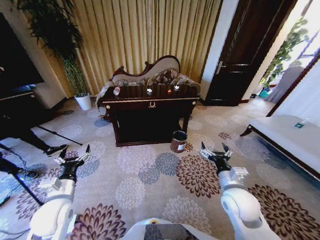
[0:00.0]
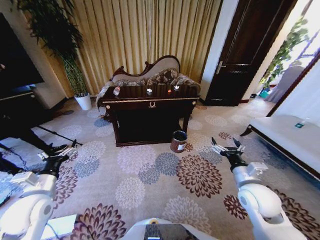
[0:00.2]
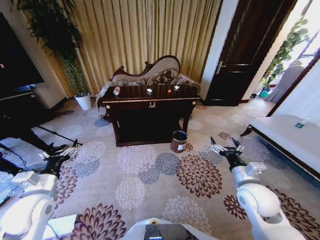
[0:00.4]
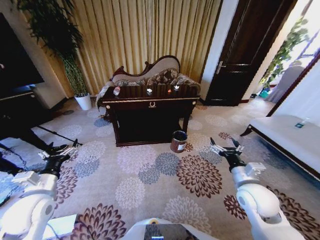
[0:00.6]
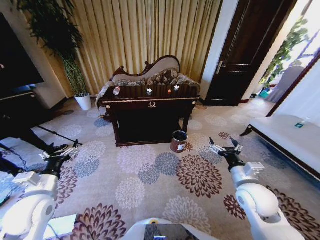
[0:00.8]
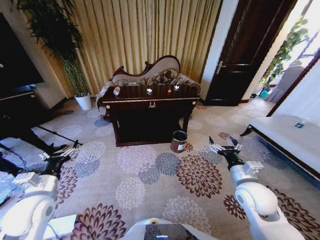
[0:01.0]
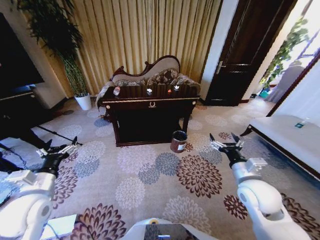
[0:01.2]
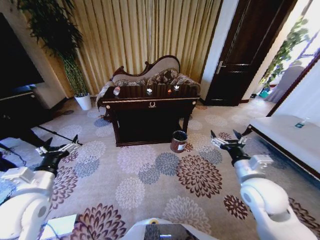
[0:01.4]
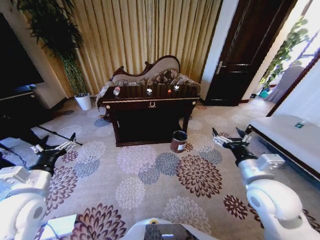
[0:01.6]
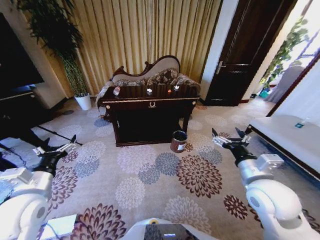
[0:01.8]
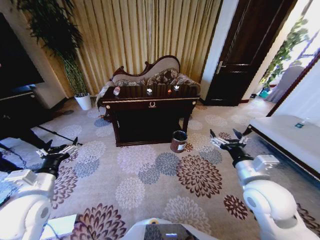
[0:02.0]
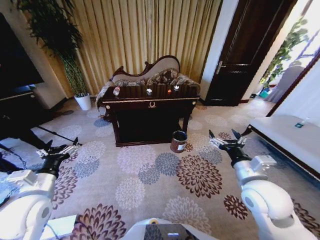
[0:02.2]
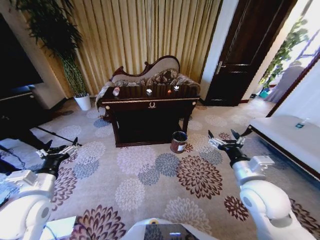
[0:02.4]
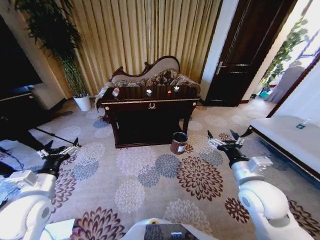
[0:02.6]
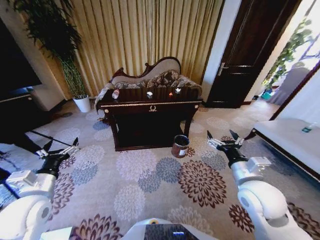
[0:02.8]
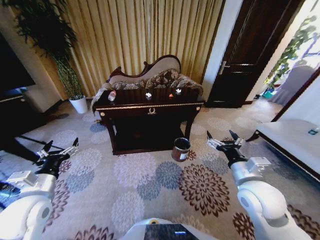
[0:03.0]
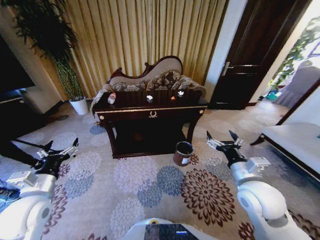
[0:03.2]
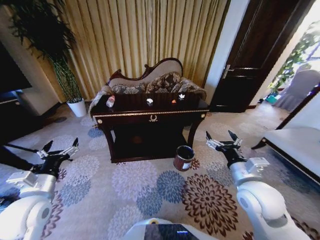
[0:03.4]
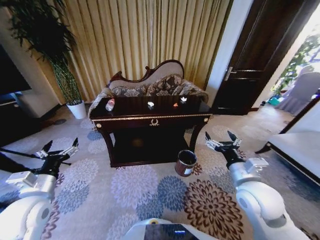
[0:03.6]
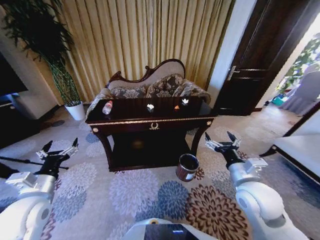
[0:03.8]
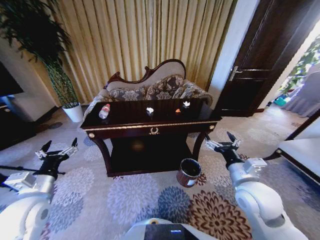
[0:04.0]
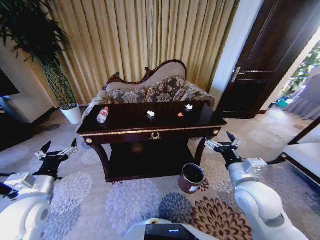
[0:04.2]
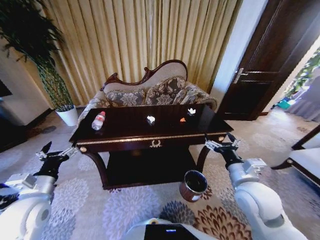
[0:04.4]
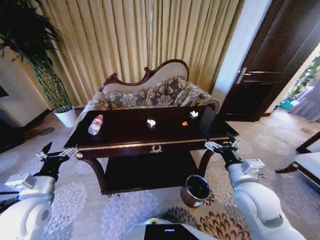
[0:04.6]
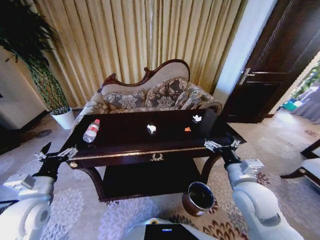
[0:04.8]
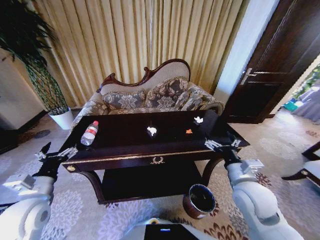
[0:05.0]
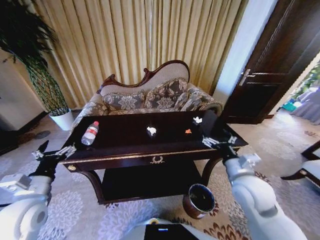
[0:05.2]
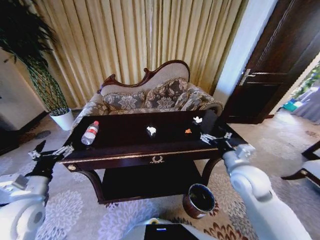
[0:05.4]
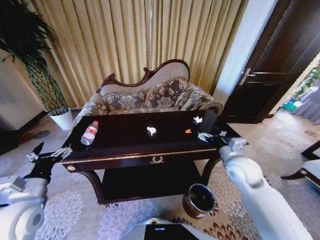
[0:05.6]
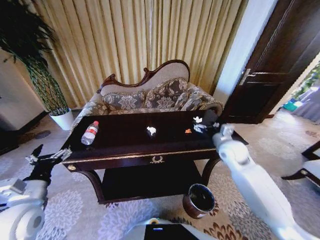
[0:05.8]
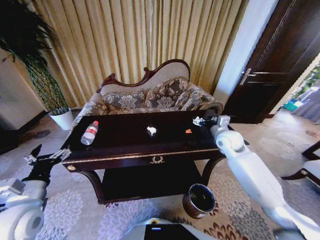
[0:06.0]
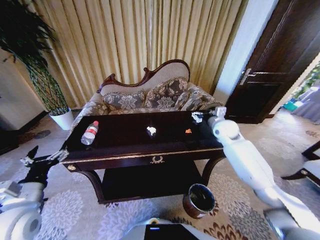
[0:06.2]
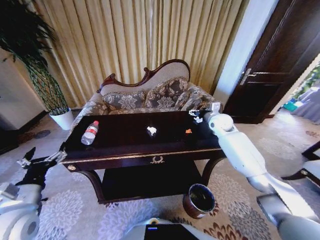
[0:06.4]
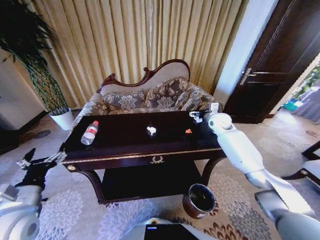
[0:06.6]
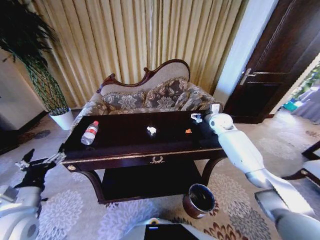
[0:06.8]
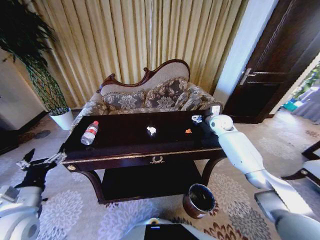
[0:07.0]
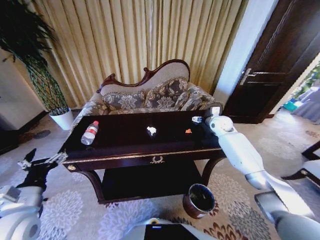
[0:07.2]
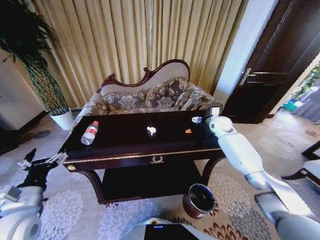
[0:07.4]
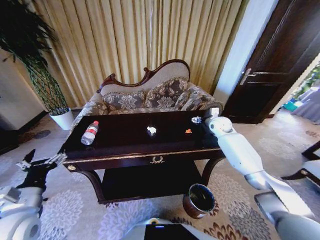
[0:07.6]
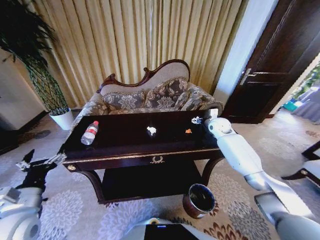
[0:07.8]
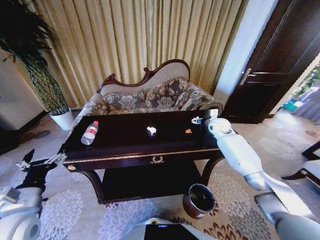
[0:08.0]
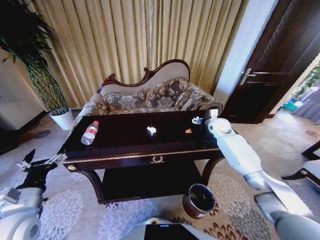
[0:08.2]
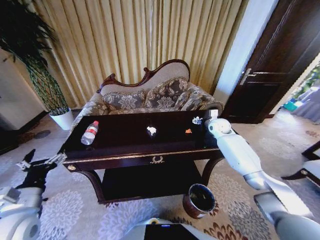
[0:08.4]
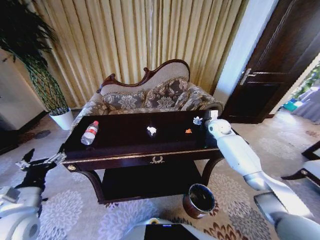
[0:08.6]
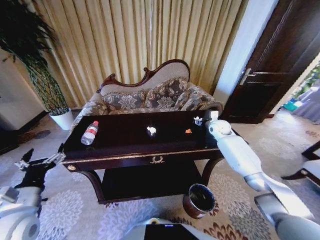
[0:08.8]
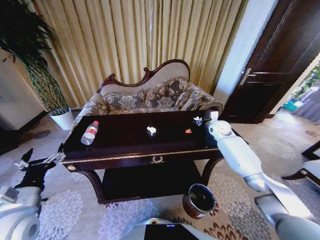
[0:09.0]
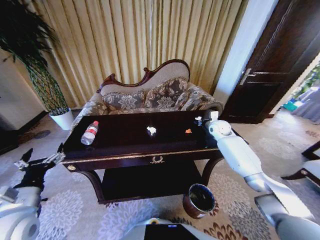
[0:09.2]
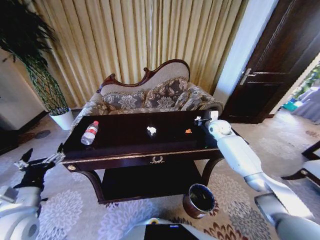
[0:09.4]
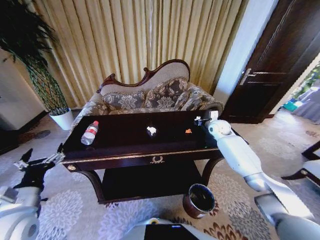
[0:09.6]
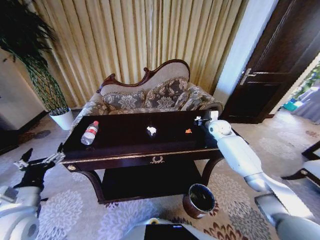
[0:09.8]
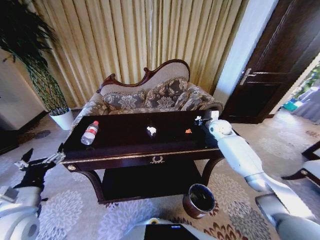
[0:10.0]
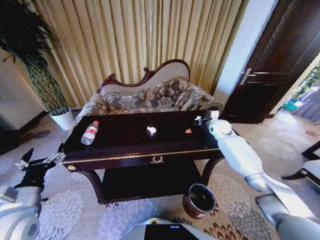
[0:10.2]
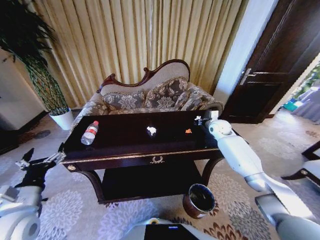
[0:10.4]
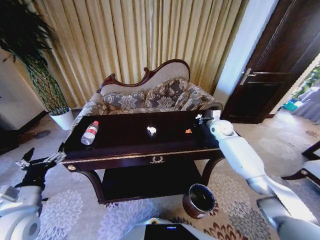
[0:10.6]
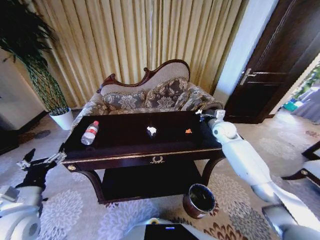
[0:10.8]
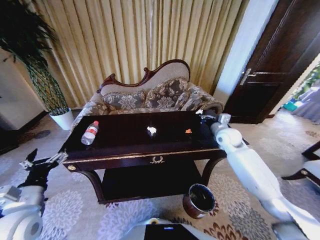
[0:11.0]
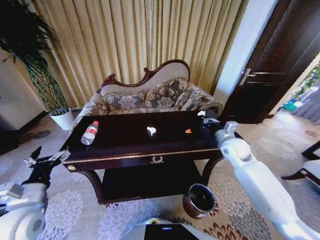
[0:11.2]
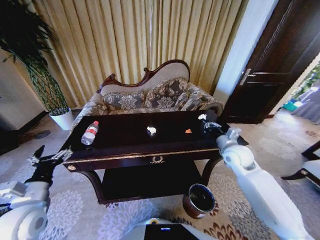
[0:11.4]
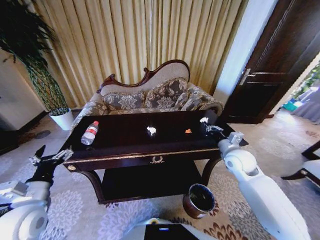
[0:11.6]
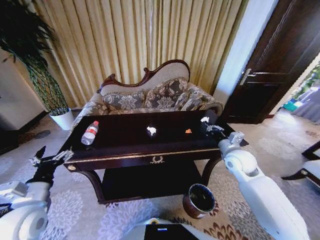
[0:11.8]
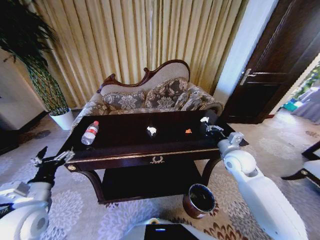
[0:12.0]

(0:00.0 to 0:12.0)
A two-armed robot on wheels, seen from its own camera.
Task of the whole recording: Move to the front of the table and place the trash on the table into the trash bin.
0:04.4 - 0:06.0: The right gripper travels forward by about 25 cm.
0:06.0 - 0:07.6: The right gripper heads forward, covering about 10 cm.
0:07.6 - 0:09.0: The right gripper closes up.
0:10.4 - 0:12.0: The right gripper heads backward, covering approximately 20 cm.

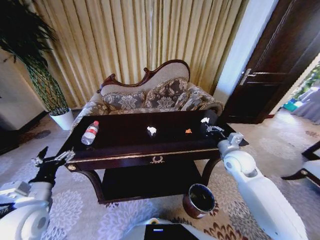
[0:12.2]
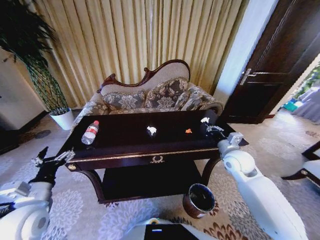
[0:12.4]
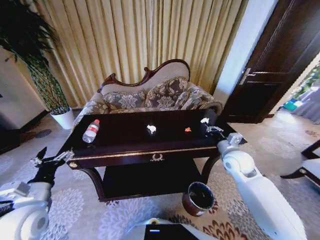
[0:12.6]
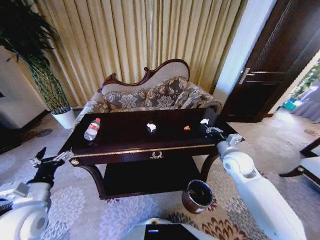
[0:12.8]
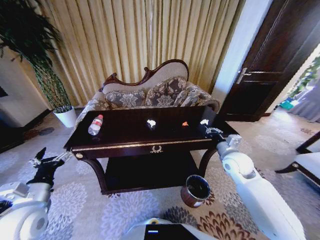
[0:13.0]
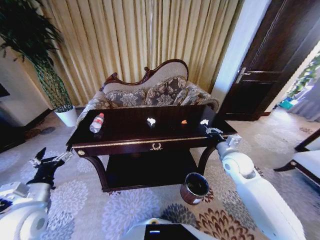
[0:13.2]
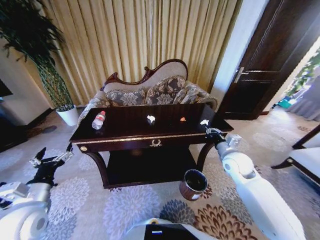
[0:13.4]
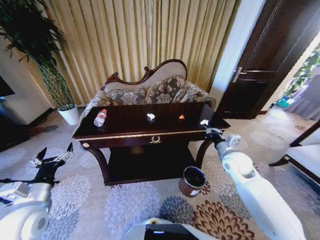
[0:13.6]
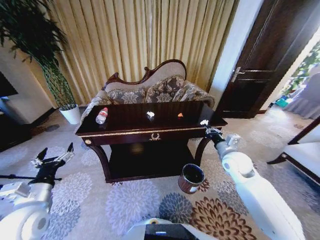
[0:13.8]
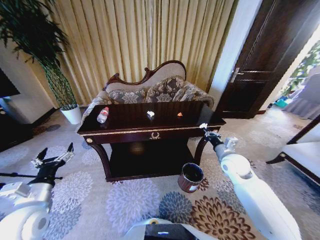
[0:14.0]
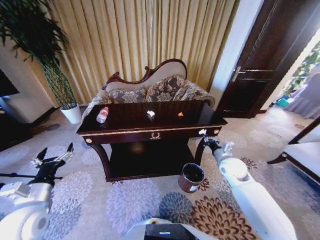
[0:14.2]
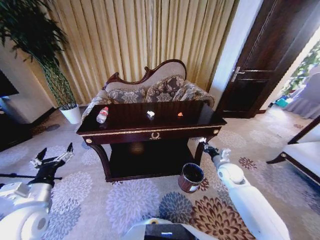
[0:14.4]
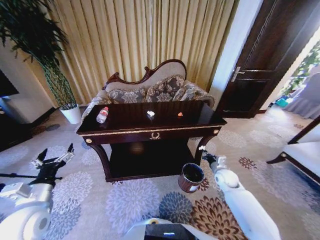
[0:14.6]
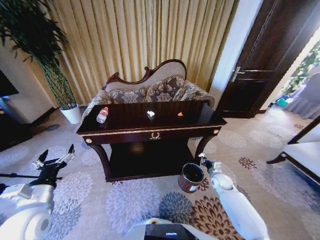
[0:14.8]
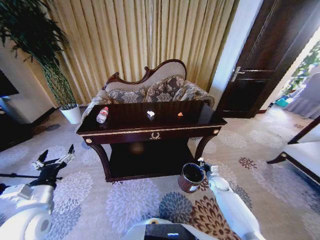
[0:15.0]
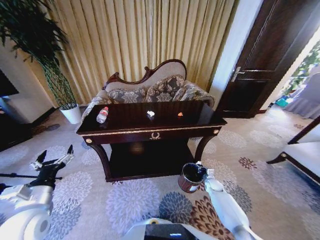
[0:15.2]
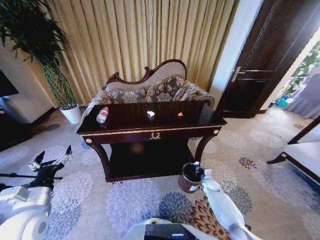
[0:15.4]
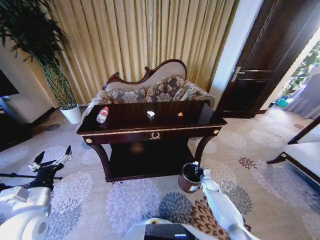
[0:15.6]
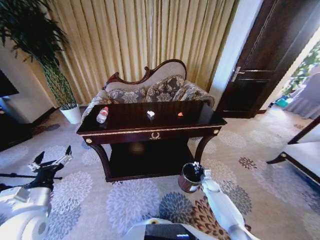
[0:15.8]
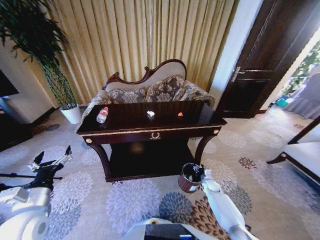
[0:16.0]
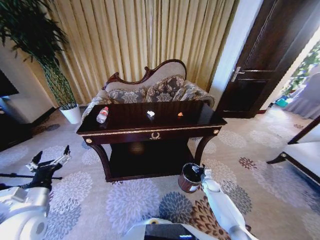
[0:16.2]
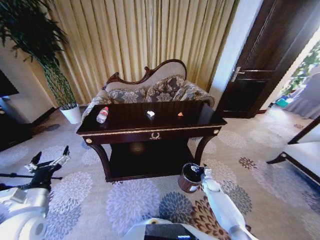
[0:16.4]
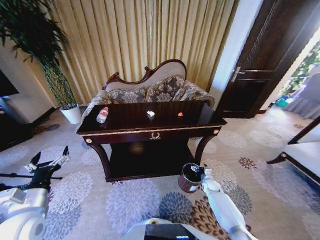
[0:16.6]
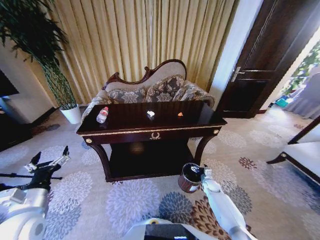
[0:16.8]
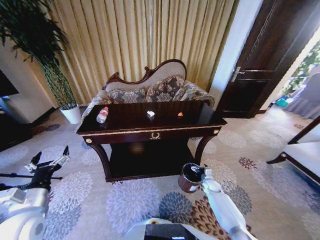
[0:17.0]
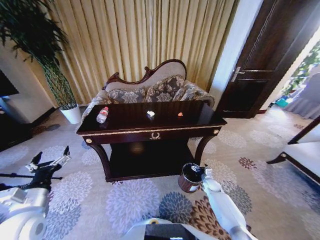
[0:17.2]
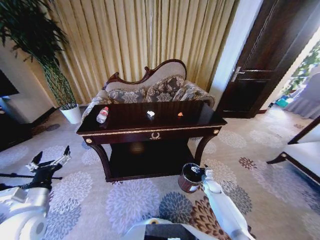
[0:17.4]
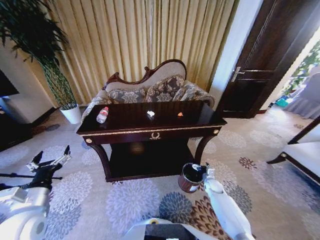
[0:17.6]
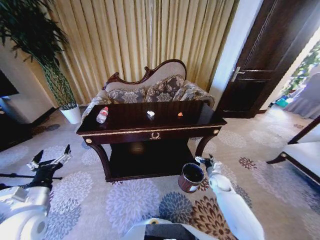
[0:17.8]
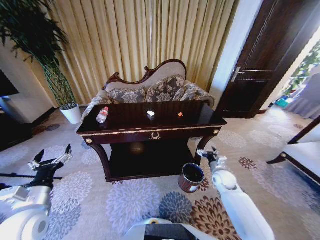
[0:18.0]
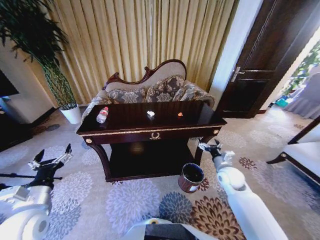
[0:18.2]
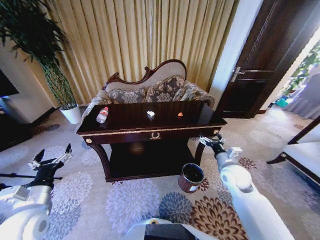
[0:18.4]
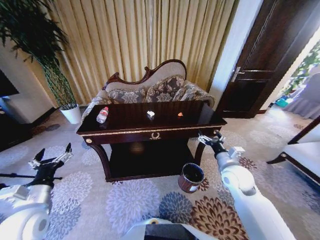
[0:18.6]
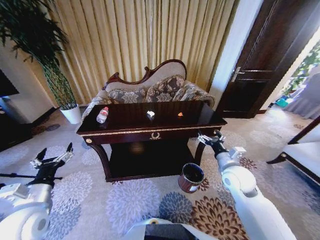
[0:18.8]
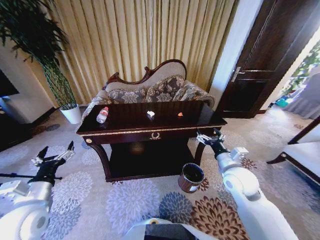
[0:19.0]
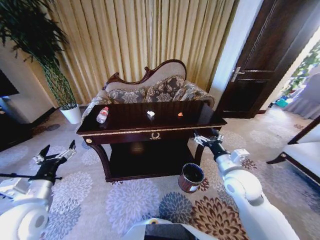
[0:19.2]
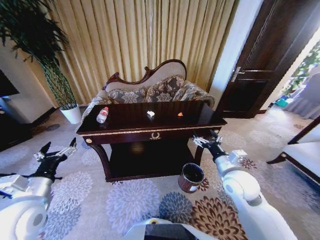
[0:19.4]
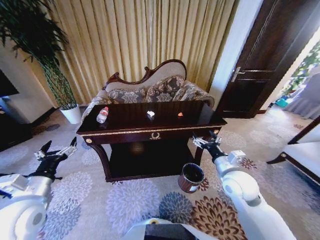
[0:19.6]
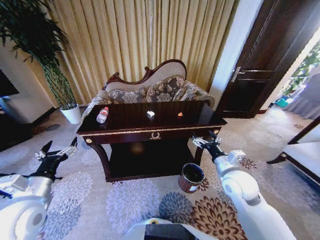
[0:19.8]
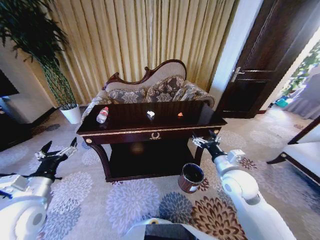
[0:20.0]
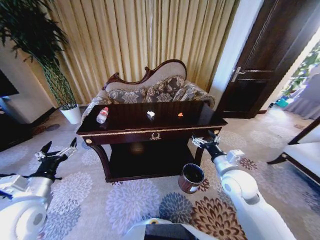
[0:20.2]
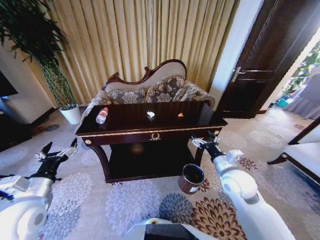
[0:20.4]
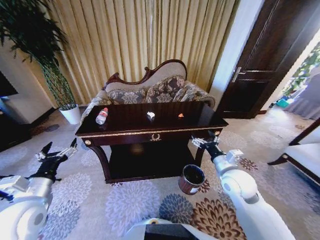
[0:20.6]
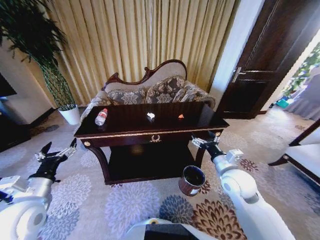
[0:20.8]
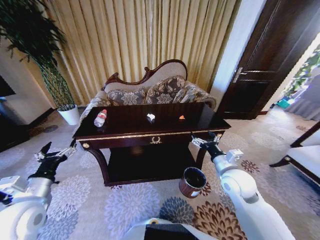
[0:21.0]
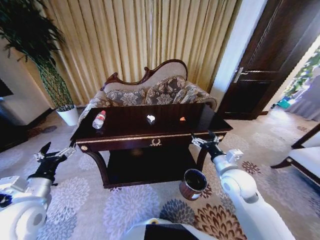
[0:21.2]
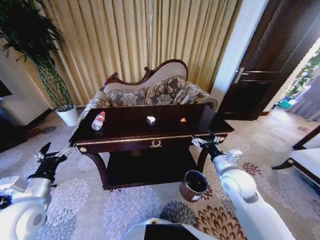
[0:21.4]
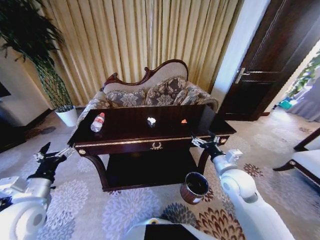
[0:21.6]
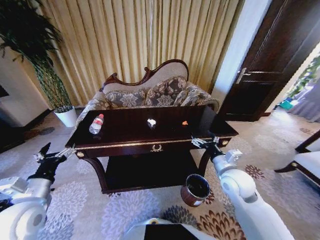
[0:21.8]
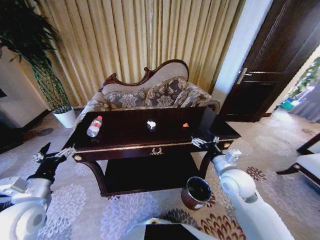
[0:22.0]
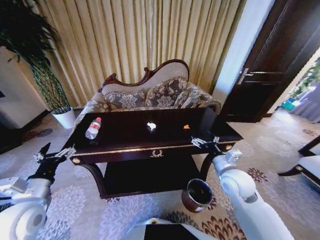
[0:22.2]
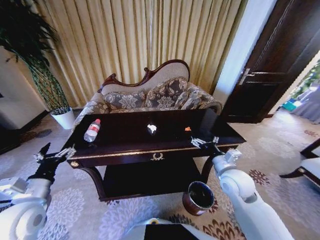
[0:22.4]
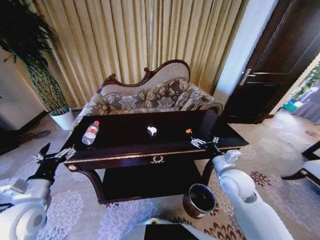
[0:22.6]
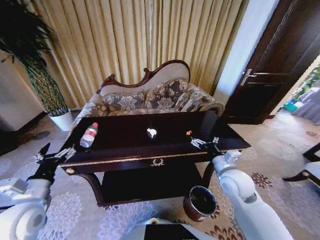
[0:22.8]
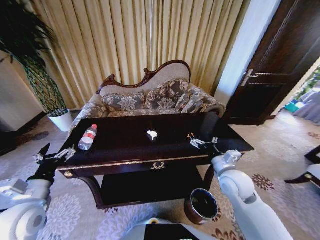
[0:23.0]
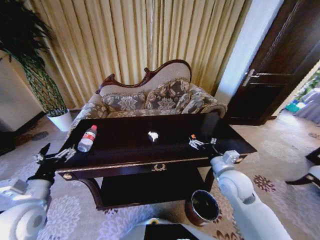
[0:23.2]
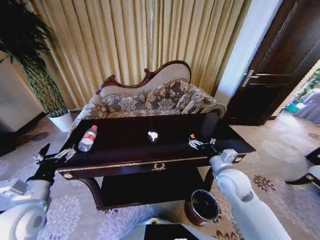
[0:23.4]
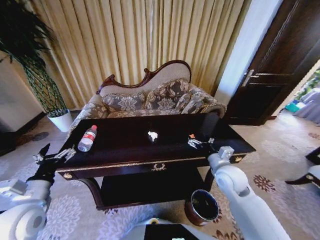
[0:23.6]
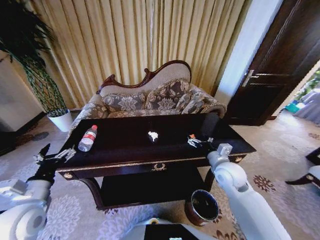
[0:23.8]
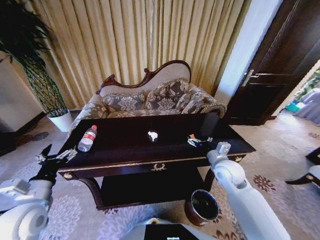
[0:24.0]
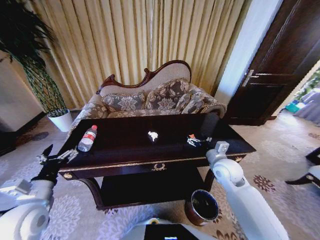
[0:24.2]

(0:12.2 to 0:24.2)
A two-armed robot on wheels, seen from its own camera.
Task of the whole recording: Move to the front of the table and place the trash on the table into the trash bin.
0:13.8 - 0:15.2: The right gripper shifts about 30 cm downward.
0:15.2 - 0:16.6: The right gripper opens up.
0:16.6 - 0:18.2: The right gripper is displaced upward by some 25 cm.
0:18.2 - 0:19.8: The right gripper moves upward, backward and to the left, approximately 10 cm.
0:22.6 - 0:24.2: The right gripper is displaced forward by approximately 5 cm.
